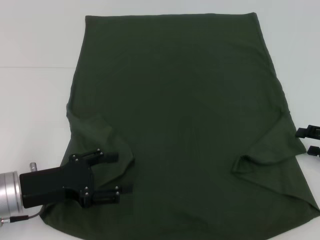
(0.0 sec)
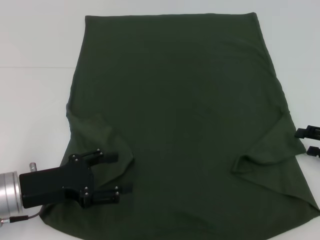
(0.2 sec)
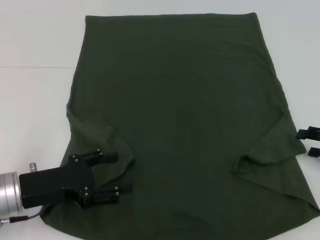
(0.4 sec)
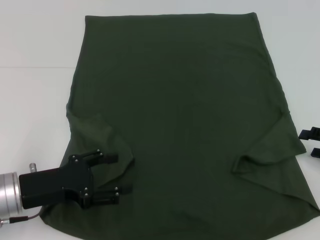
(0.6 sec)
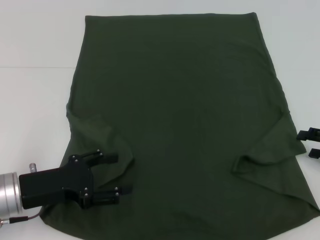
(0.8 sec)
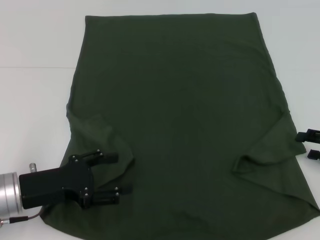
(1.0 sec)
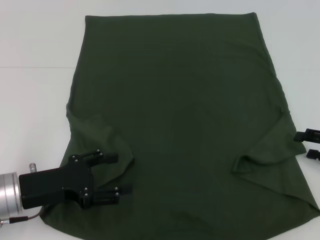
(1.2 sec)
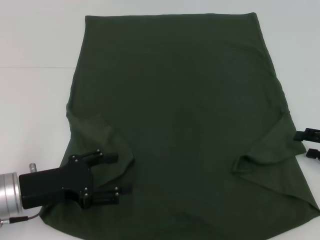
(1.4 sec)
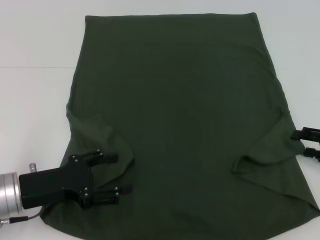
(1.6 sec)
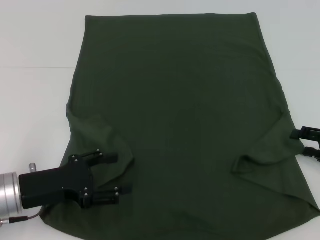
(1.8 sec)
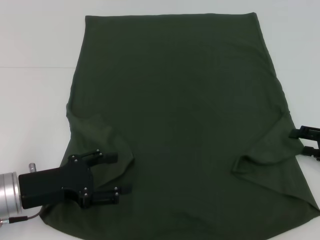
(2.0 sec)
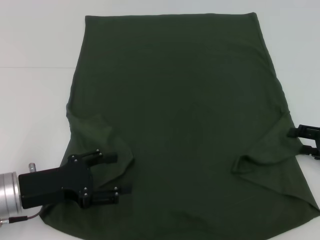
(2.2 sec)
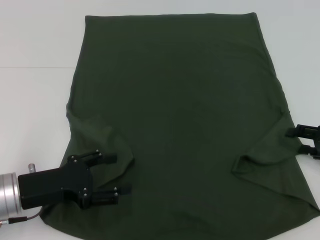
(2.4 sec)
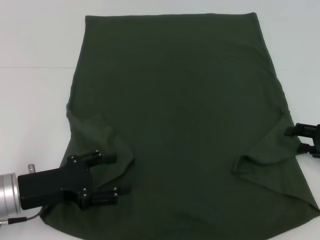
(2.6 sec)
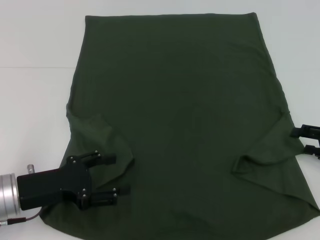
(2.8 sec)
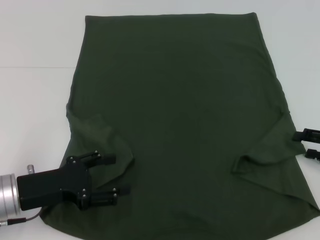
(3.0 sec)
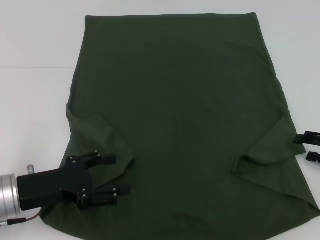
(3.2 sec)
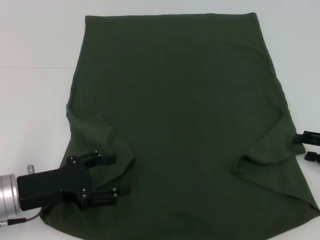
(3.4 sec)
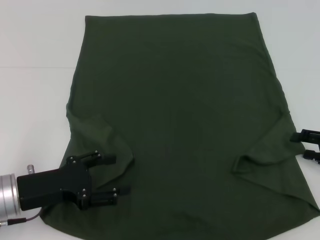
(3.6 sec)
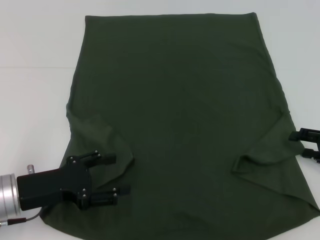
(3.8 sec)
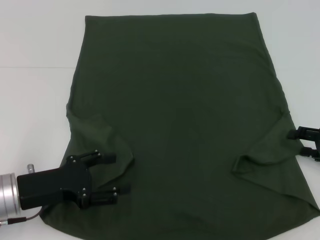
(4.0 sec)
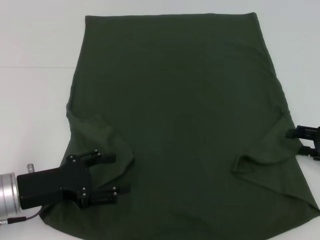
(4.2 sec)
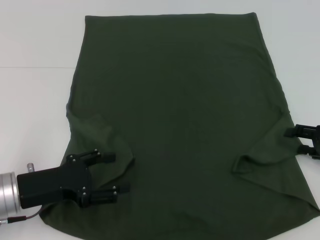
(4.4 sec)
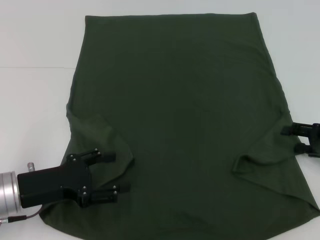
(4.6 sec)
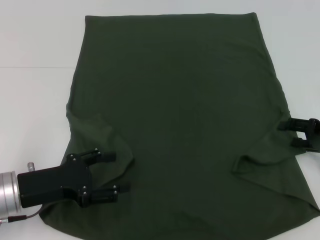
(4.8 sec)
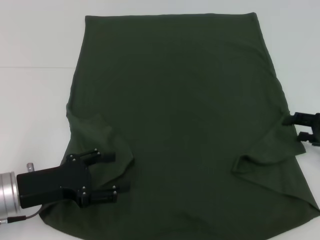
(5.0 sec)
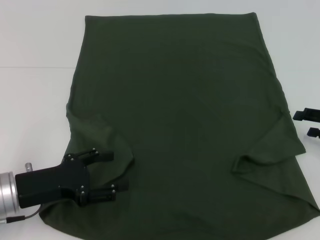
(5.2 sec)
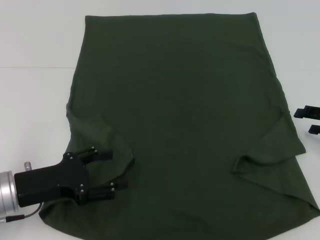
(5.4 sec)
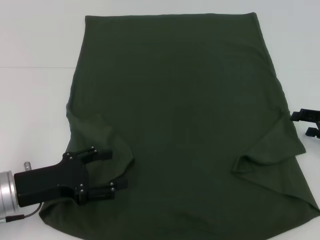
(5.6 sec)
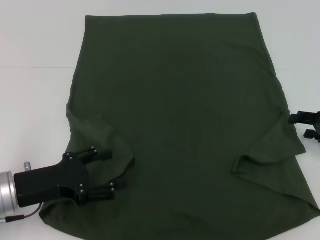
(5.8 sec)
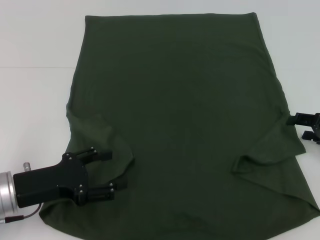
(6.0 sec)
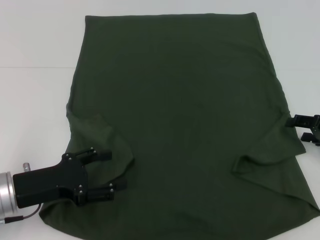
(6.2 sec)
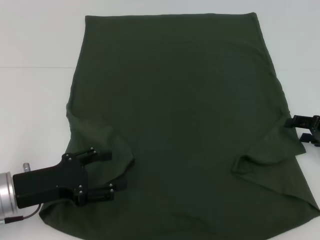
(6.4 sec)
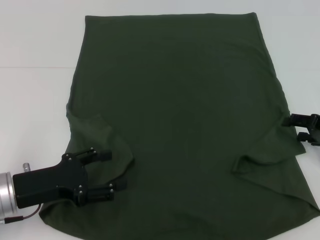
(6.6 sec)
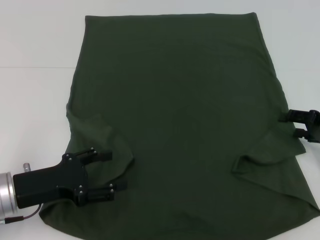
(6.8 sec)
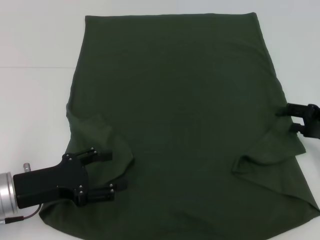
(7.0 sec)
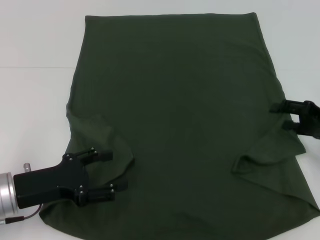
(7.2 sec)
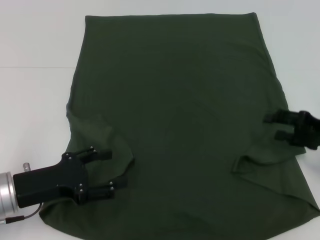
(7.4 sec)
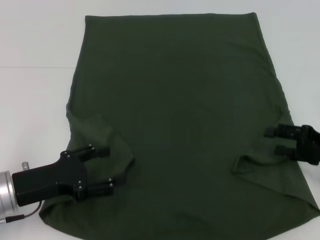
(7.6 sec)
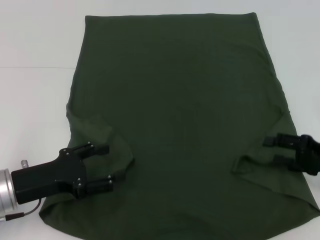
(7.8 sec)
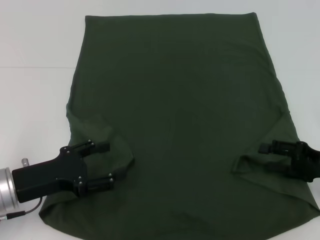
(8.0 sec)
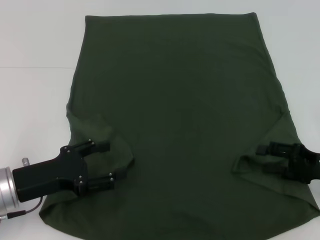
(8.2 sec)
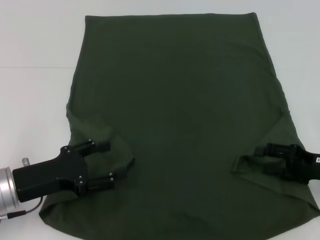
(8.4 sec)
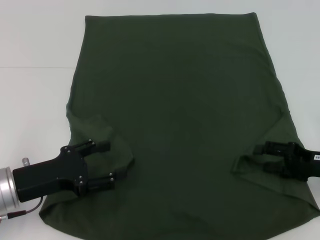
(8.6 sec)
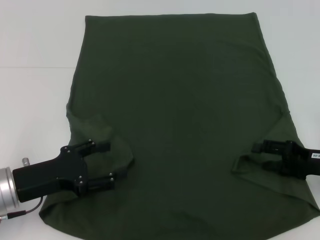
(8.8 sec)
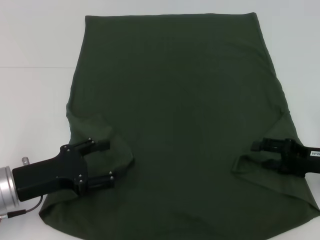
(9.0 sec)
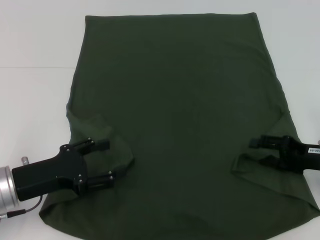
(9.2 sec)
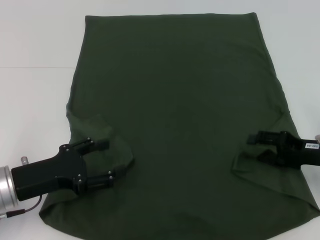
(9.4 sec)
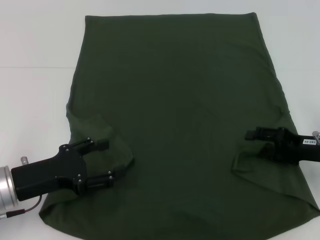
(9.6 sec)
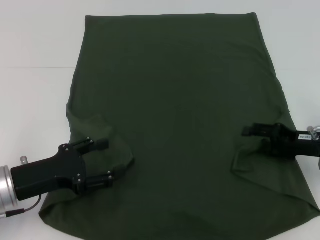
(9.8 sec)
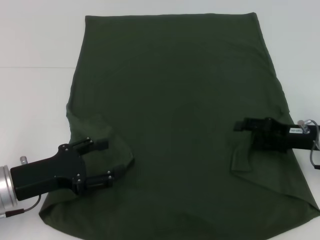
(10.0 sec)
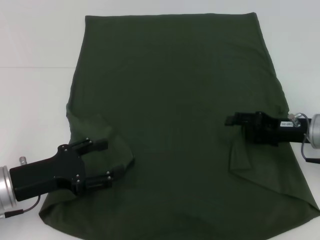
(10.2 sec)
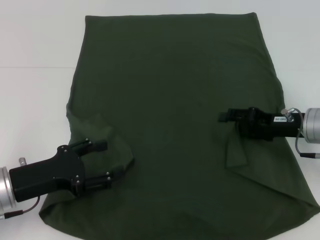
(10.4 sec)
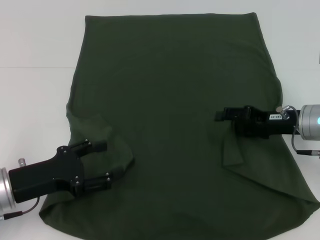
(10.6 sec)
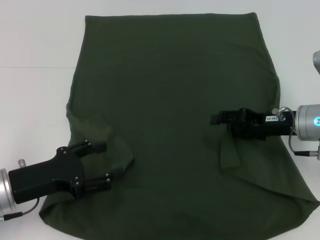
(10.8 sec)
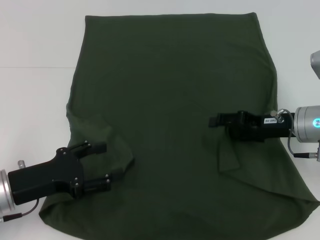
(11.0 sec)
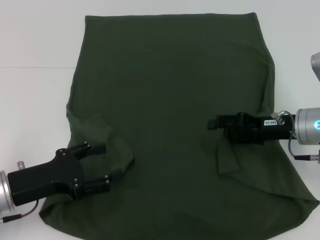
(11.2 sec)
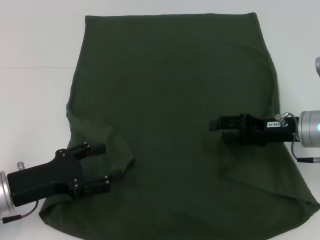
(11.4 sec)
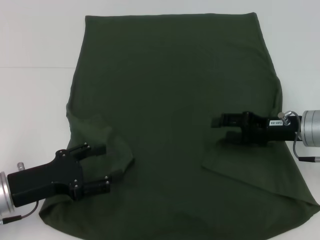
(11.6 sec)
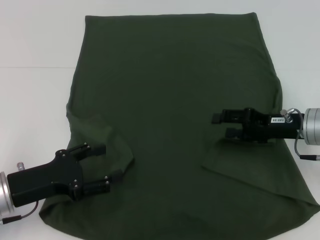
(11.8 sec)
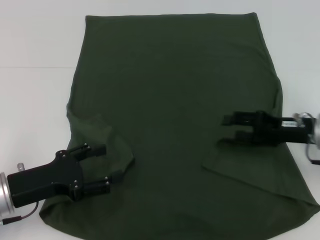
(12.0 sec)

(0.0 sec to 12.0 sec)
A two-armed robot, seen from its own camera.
0.0 sec - 1.6 sec: Both grippers stay about where they are.
1.6 sec - 3.0 sec: Neither gripper changes place.
3.0 sec - 9.0 sec: There are only small adjustments of the grippers.
9.0 sec - 10.4 sec: The right gripper shifts approximately 10 cm to the left and forward.
10.4 sec - 12.0 sec: The grippers move only a little.

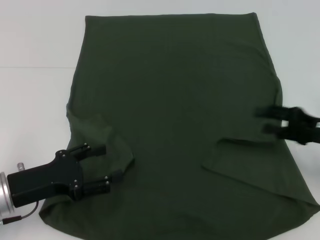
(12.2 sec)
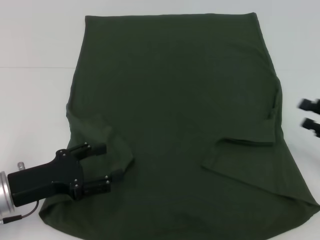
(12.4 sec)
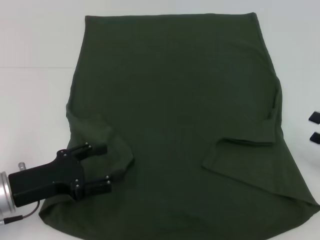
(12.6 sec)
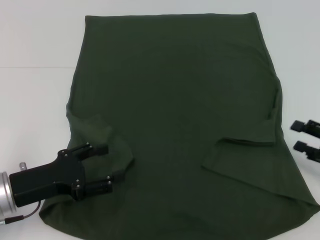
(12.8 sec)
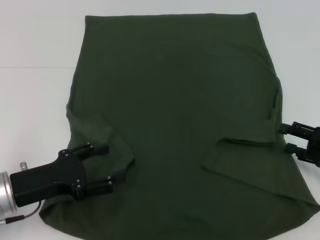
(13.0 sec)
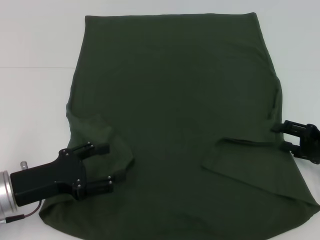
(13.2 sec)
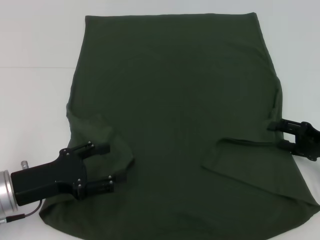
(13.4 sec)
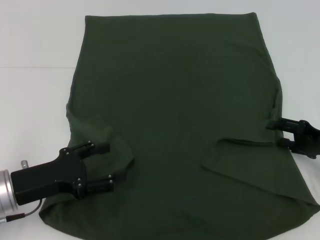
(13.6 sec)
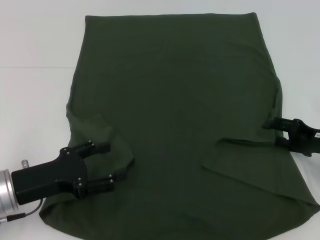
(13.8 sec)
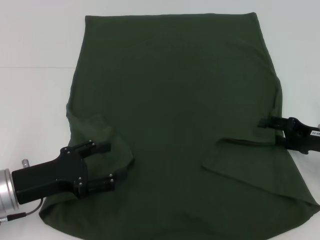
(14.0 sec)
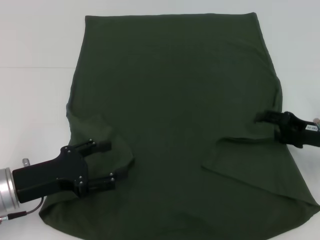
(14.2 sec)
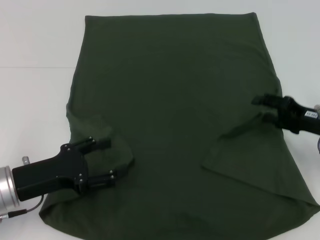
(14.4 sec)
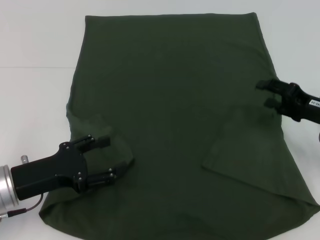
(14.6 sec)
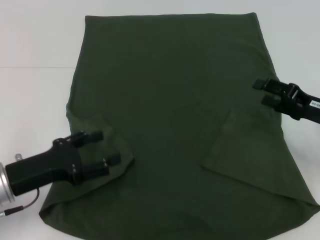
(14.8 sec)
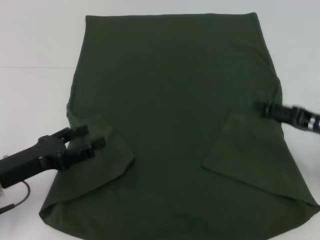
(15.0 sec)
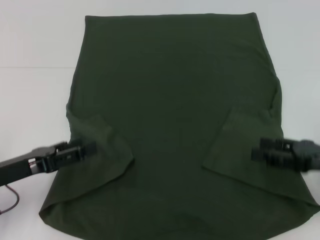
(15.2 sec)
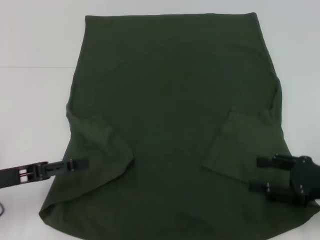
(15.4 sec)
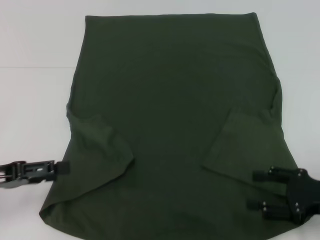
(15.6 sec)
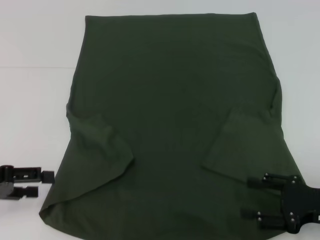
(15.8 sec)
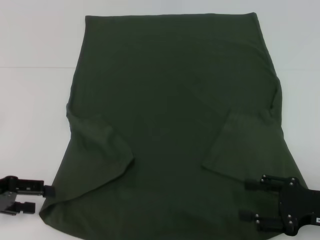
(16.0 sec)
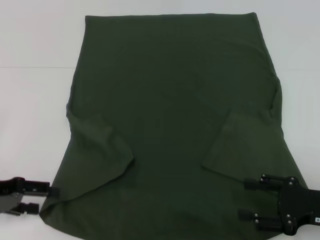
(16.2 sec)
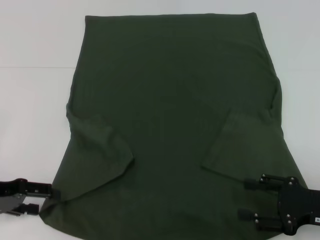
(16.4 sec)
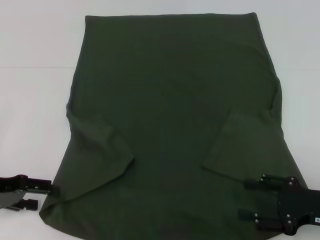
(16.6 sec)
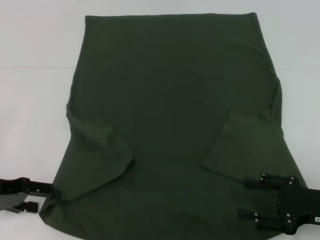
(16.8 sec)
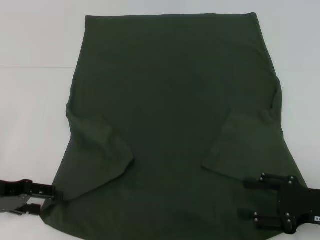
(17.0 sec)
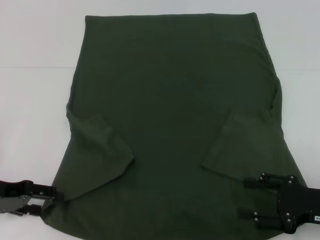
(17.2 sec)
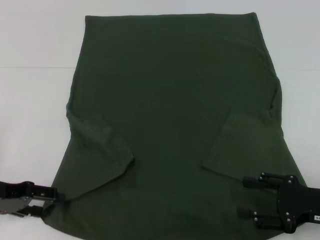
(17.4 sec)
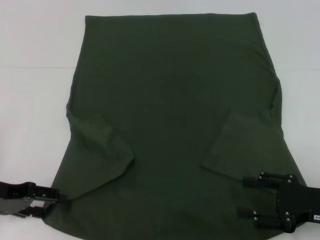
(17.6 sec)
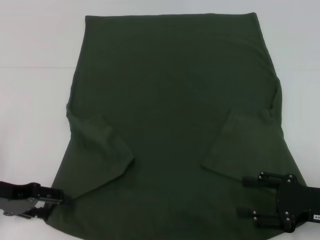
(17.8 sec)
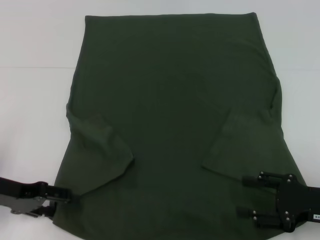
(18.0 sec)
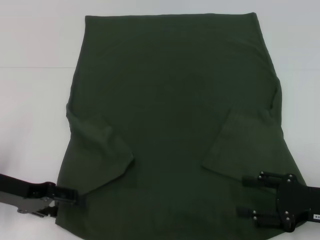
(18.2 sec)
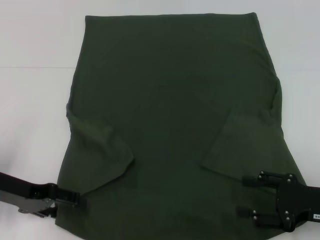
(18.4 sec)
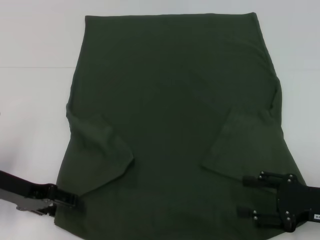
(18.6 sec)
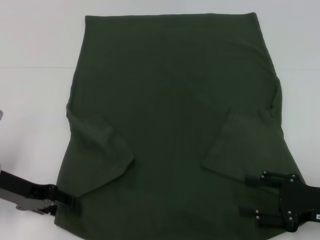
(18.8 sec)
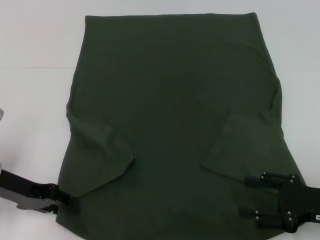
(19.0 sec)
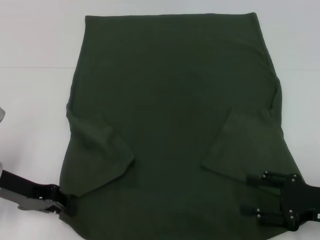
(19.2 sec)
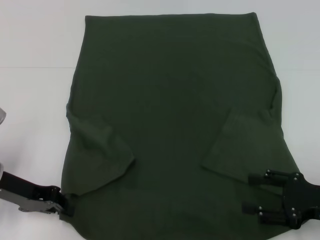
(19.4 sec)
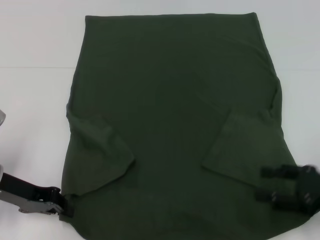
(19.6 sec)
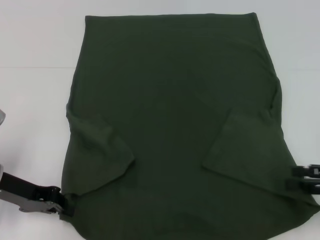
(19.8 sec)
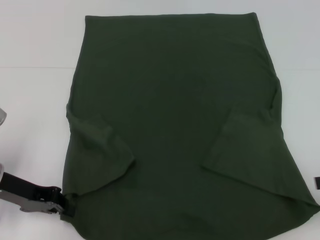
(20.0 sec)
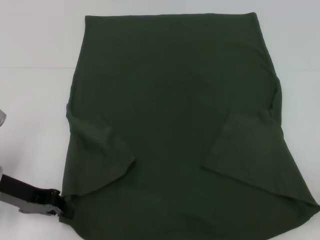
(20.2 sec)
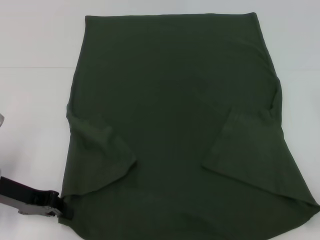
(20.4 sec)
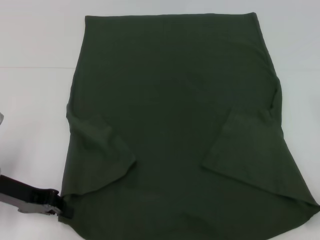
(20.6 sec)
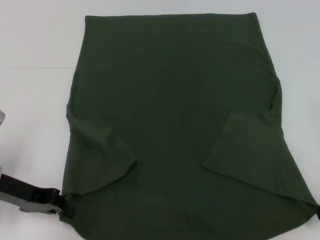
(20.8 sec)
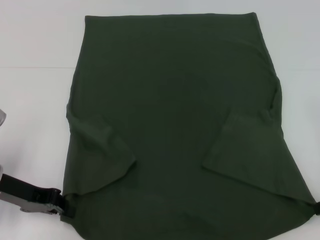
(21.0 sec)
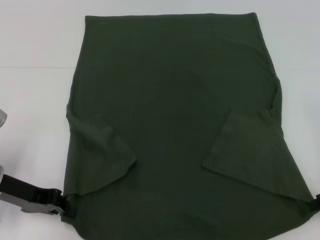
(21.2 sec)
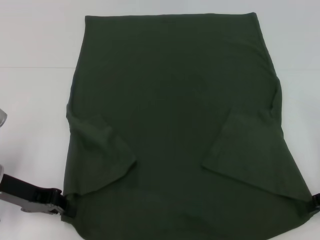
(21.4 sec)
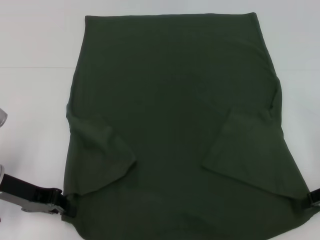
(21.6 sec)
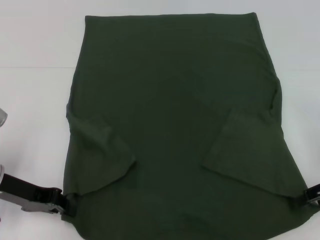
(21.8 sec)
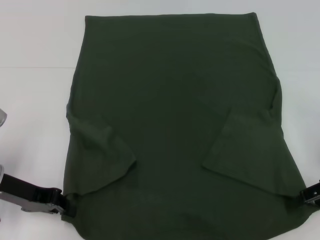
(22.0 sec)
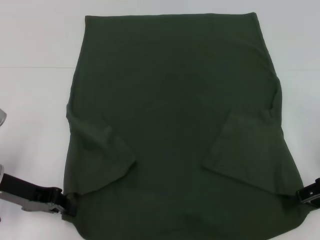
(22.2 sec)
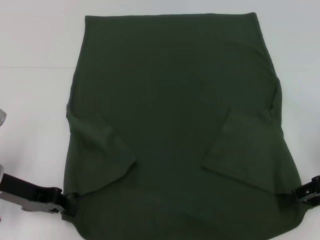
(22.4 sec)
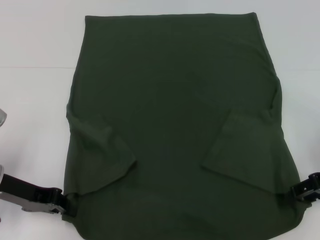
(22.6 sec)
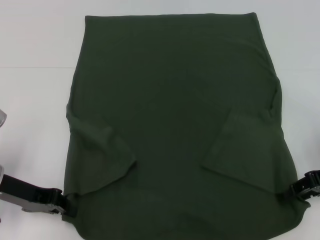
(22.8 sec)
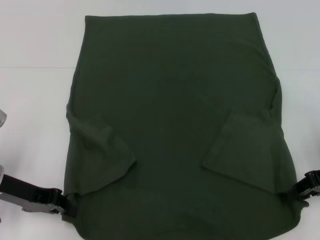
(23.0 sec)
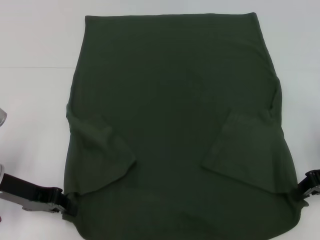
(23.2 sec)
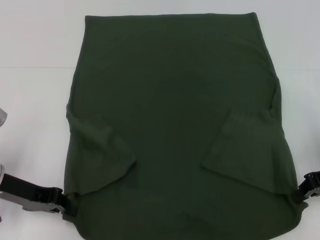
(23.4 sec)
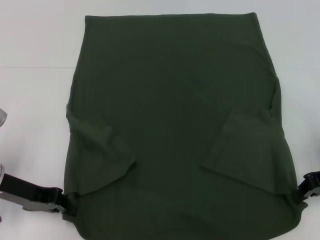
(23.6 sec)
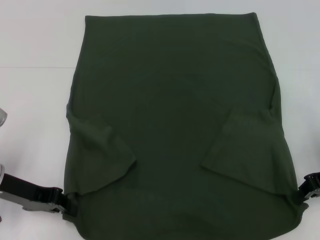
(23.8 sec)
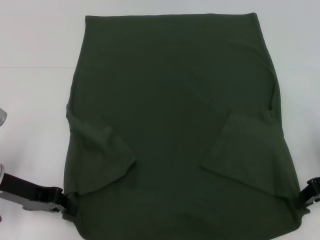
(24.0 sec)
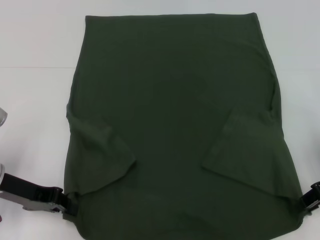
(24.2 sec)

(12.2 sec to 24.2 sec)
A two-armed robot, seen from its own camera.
Step, 12.2 sec - 15.4 sec: Fold the bottom right sleeve with your right hand.
Step, 15.6 sec - 19.6 sec: Grab the bottom left corner with your left hand.
Step, 19.8 sec - 24.0 sec: Grab the bottom right corner with your right hand.
13.8 sec - 15.2 sec: The right gripper travels backward by approximately 5 cm.
15.2 sec - 16.6 sec: The right gripper moves approximately 5 cm. Meanwhile the left gripper moves some 5 cm.
16.6 sec - 18.2 sec: There are only small adjustments of the grippers.
18.2 sec - 19.8 sec: The right gripper travels to the right by approximately 5 cm. Meanwhile the left gripper closes up.
21.2 sec - 22.6 sec: The grippers make only small movements.
22.6 sec - 24.2 sec: The right gripper closes.
